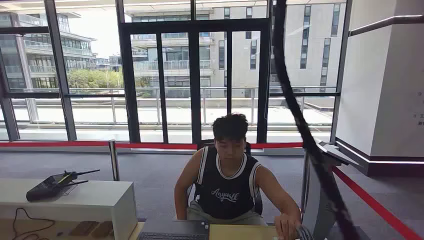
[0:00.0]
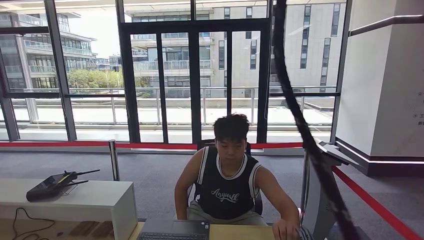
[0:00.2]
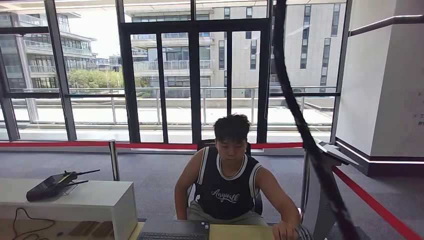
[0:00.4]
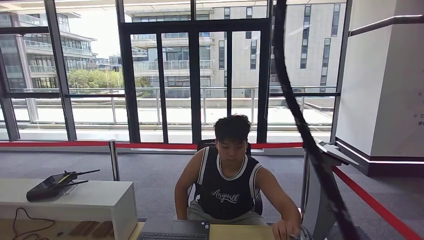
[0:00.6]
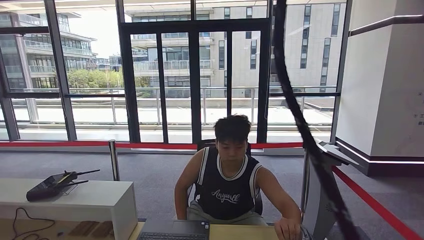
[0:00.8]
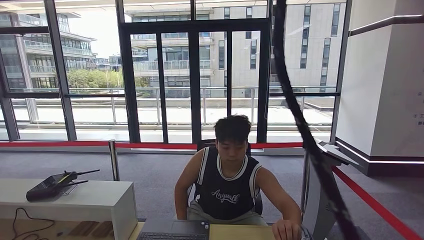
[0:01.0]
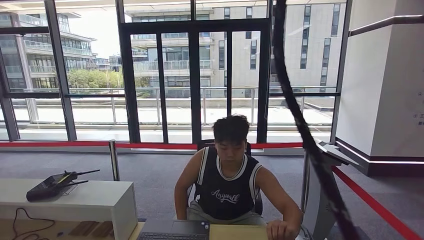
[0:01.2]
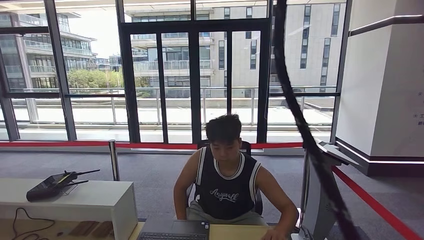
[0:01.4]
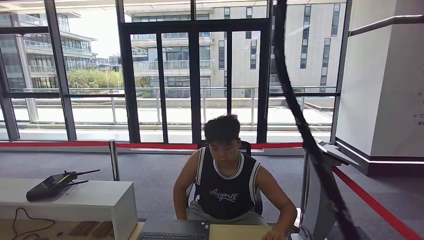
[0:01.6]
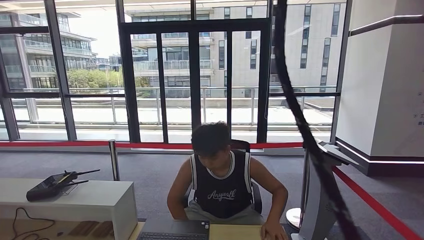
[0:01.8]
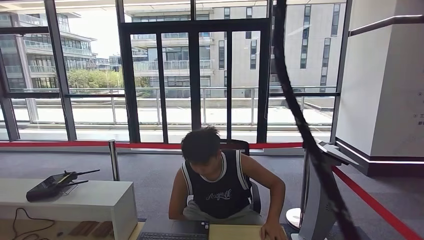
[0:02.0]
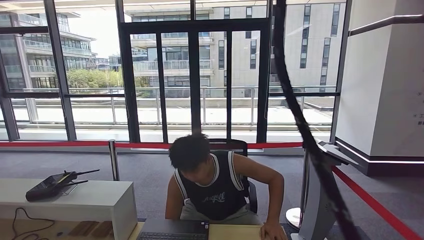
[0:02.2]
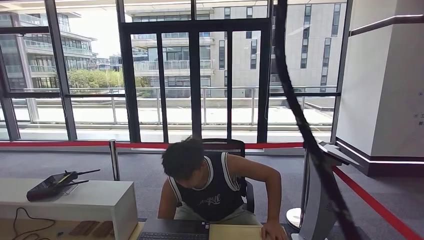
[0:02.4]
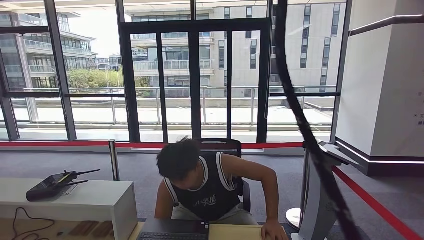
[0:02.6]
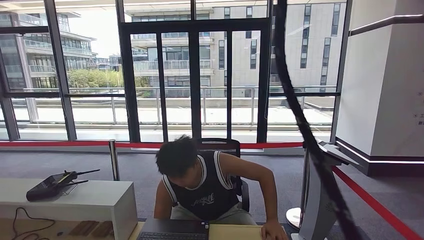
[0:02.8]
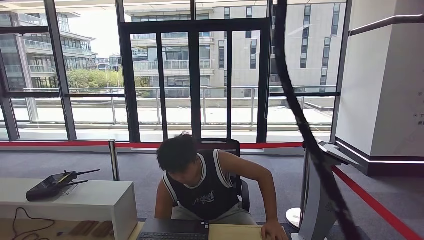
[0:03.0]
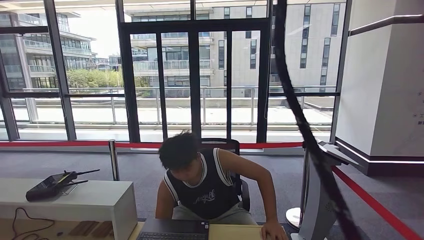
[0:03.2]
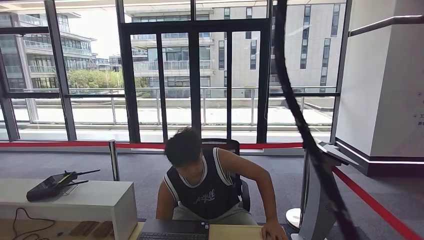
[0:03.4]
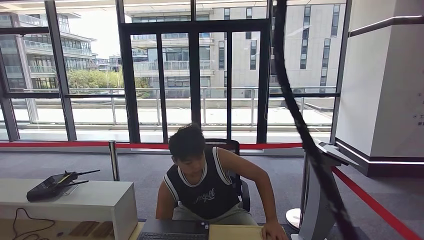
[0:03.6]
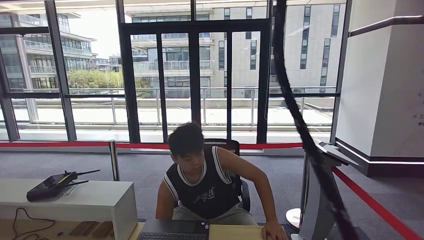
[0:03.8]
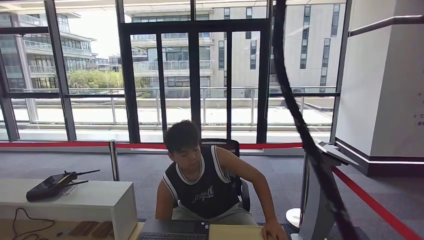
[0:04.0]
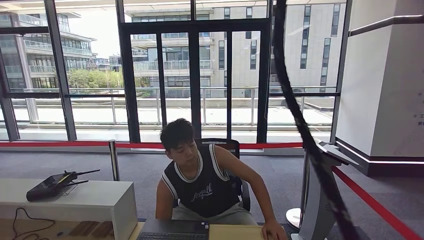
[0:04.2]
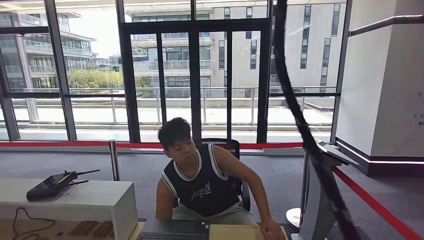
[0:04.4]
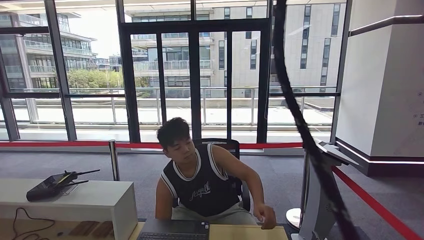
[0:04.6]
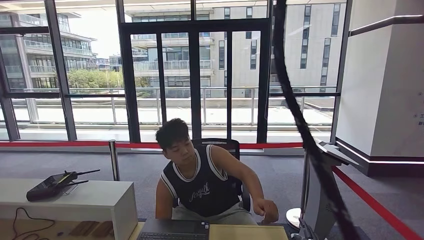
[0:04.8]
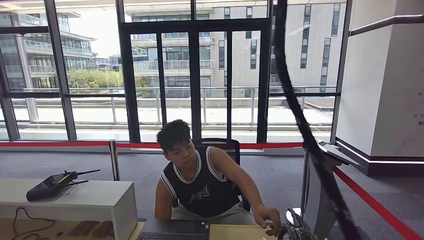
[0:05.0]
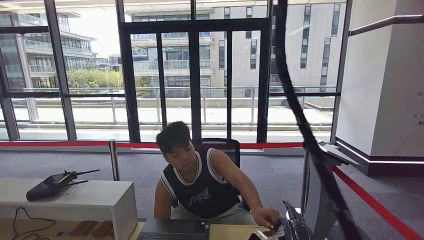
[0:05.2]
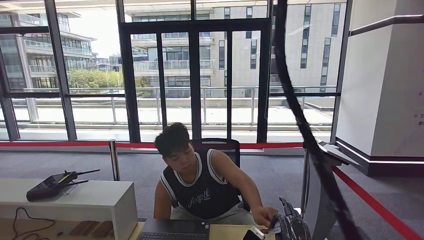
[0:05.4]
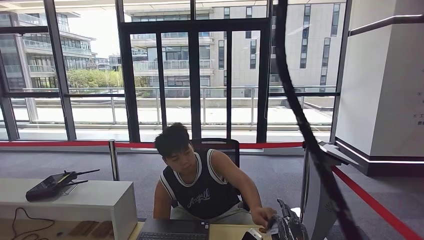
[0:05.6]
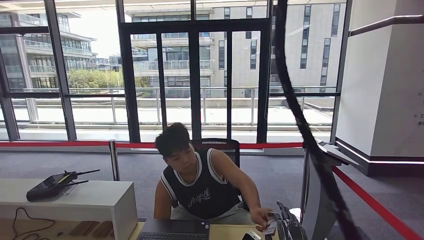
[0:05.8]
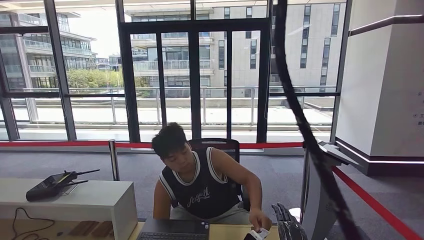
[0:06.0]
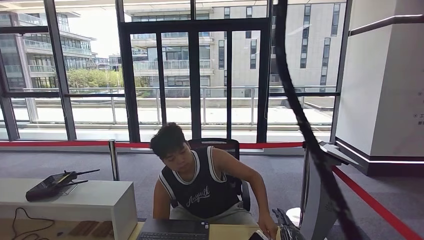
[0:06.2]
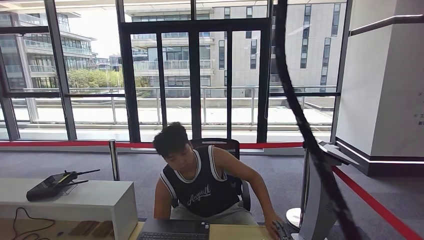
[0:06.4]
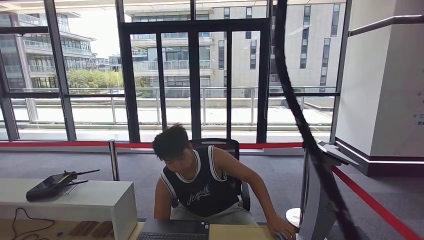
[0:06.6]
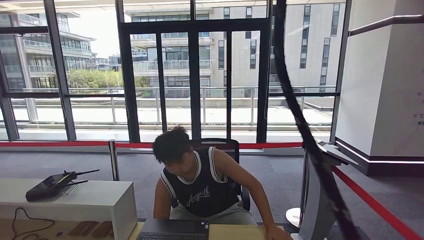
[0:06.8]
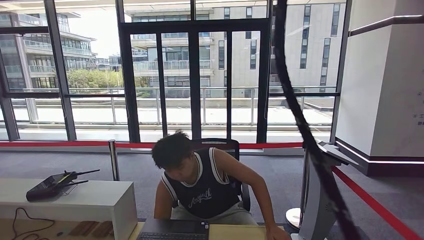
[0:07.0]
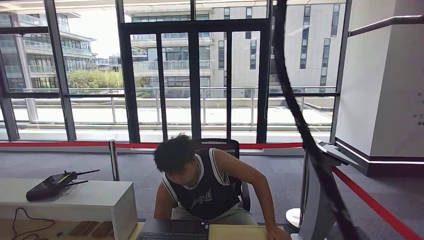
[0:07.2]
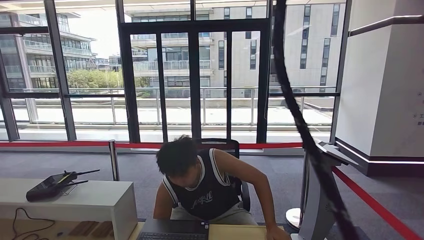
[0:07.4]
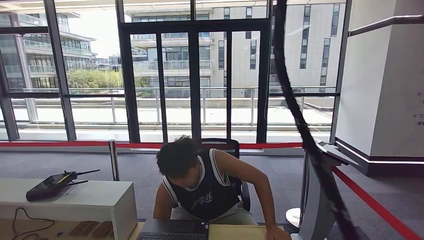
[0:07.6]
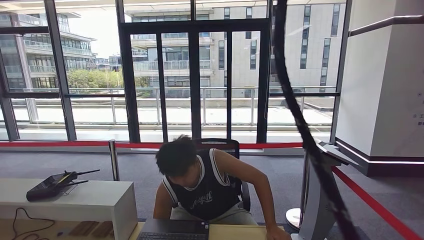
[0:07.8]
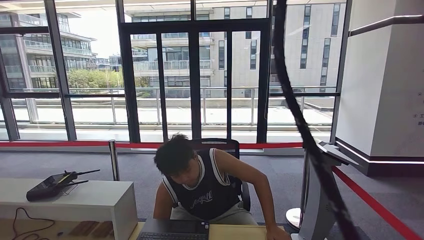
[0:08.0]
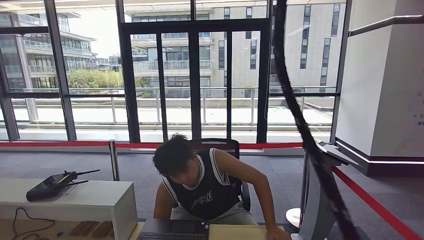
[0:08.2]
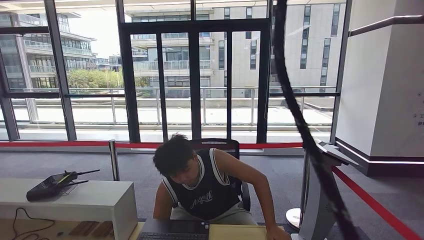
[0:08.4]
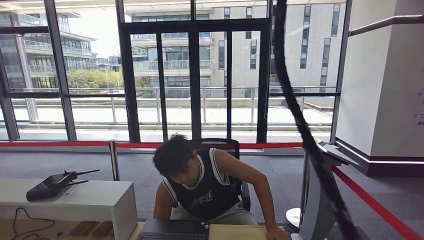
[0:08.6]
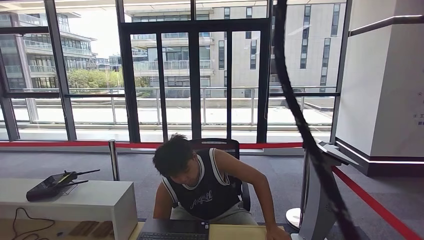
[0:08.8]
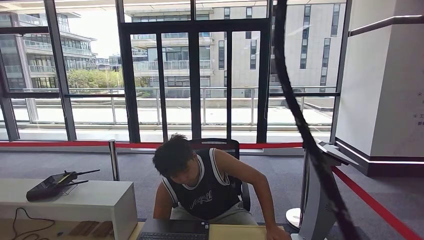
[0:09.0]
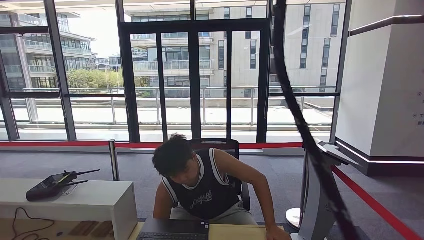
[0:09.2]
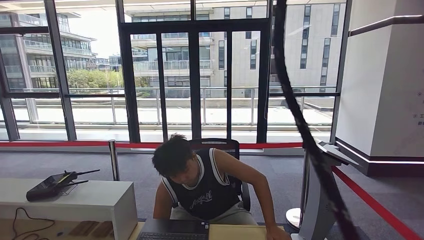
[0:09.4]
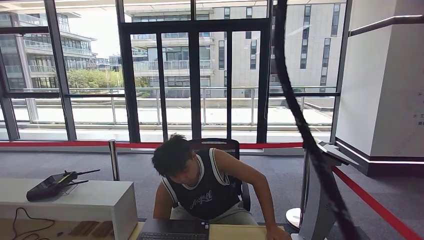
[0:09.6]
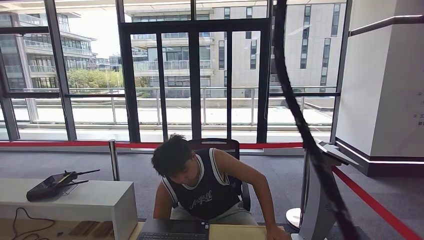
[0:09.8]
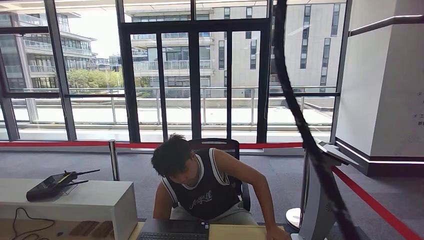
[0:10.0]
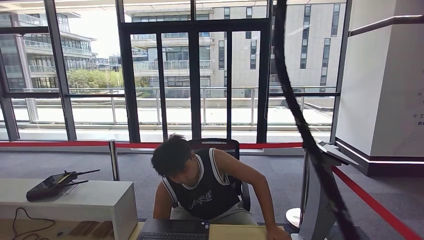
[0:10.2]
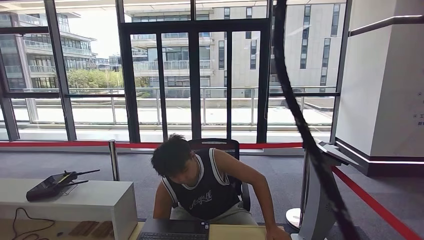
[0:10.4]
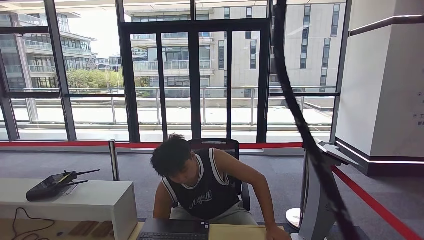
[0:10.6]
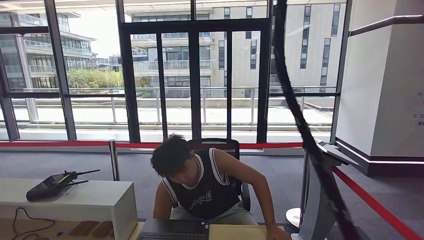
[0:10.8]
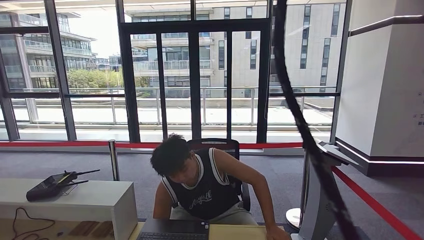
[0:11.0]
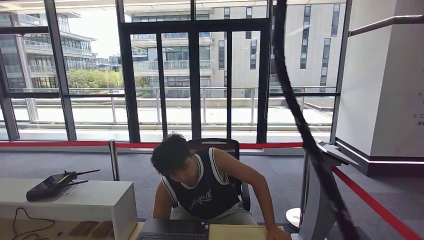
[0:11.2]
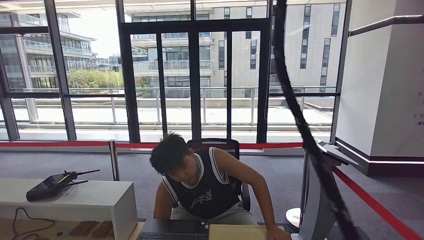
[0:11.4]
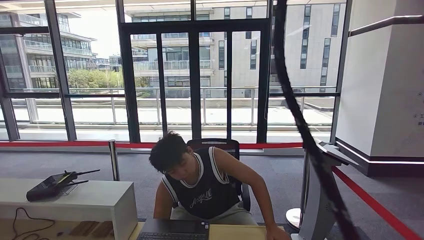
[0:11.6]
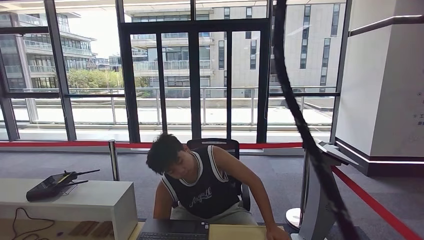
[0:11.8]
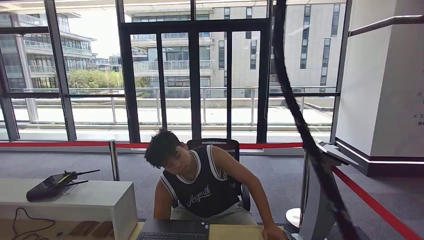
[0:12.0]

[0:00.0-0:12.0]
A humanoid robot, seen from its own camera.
Step, 0:01.2 to 0:04.4: Place the ID card on the card reader.
Step, 0:04.6 to 0:06.4: Hand the ID card to the person.
Step, 0:06.8 to 0:11.2: Pick up the room key from the key card box.
0:01.6 to 0:03.0: The right hand moves downward and to the right, about 10 cm.
0:03.0 to 0:04.4: The right hand goes about 5 cm upward.
0:04.4 to 0:06.0: The right hand goes roughly 15 cm upward, to the left and forward.
0:06.0 to 0:07.6: The right hand heads downward and backward, covering some 20 cm.
0:10.4 to 0:12.0: The right hand shifts about 10 cm upward.

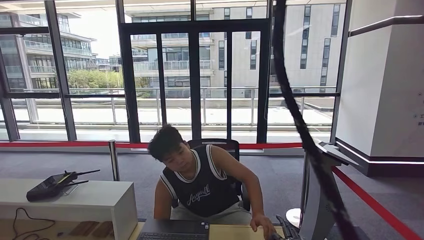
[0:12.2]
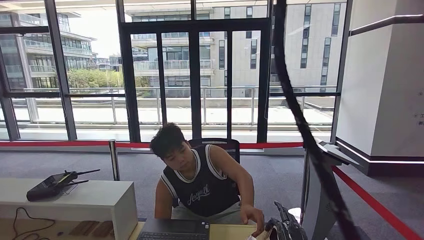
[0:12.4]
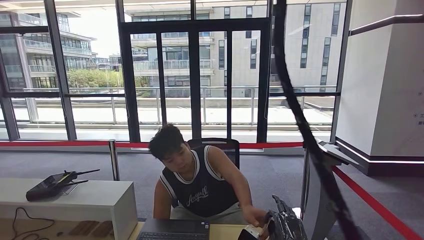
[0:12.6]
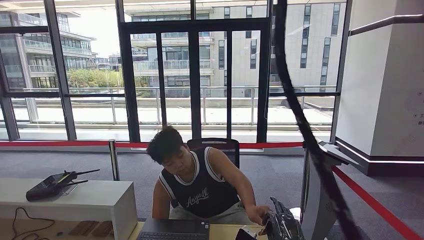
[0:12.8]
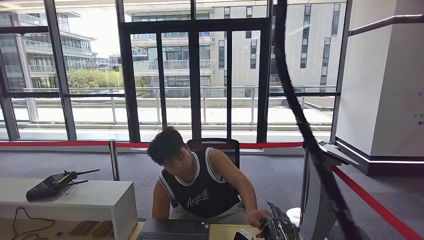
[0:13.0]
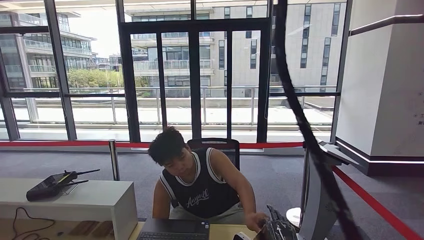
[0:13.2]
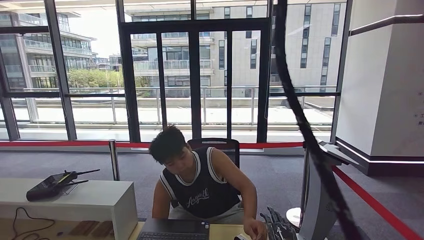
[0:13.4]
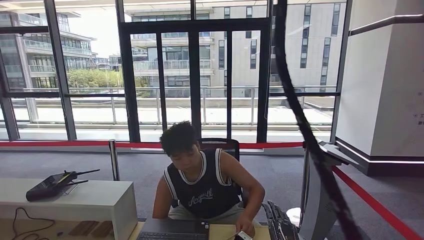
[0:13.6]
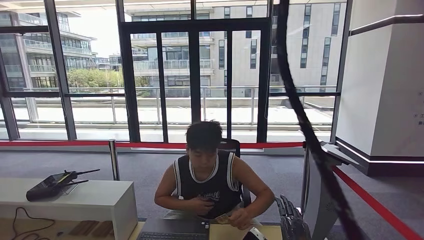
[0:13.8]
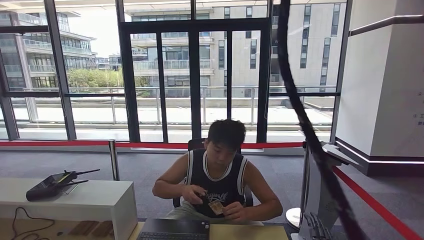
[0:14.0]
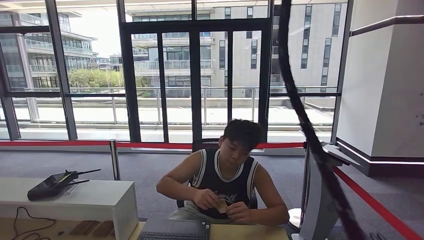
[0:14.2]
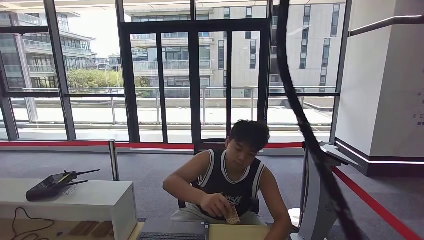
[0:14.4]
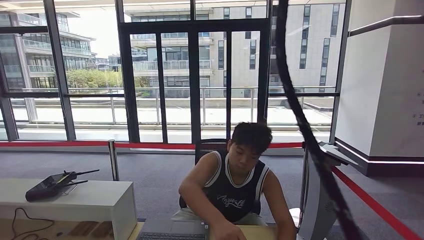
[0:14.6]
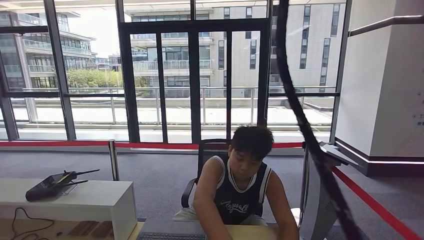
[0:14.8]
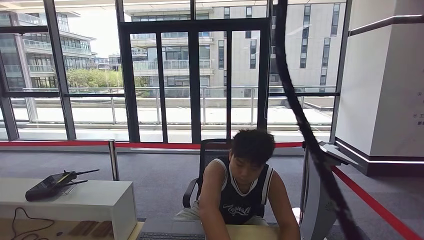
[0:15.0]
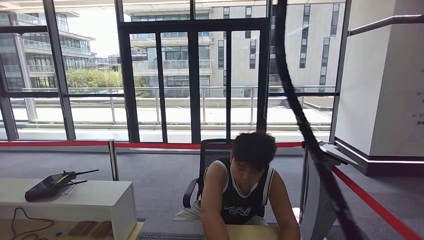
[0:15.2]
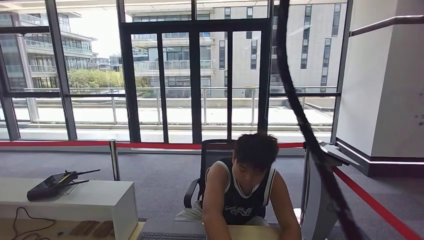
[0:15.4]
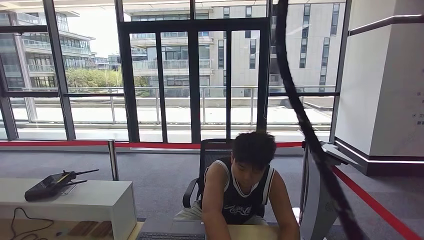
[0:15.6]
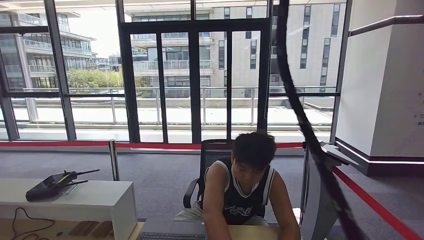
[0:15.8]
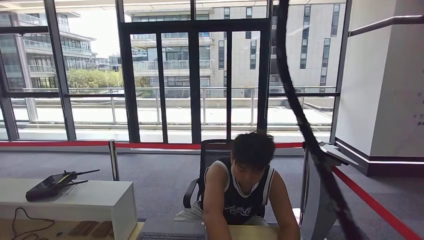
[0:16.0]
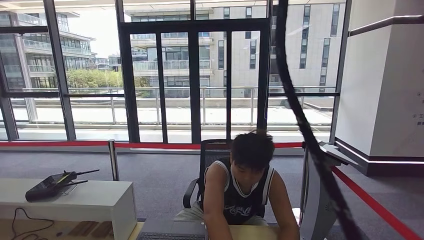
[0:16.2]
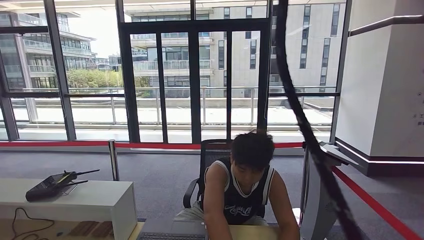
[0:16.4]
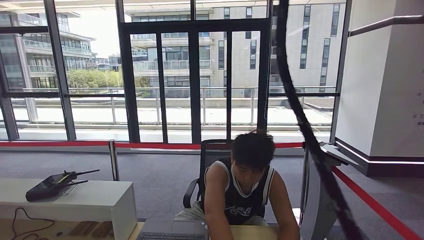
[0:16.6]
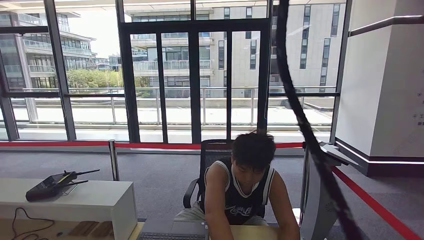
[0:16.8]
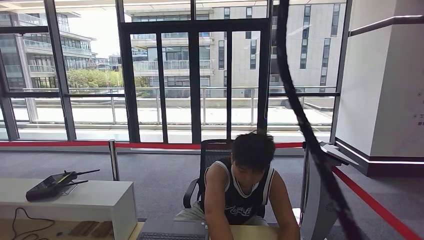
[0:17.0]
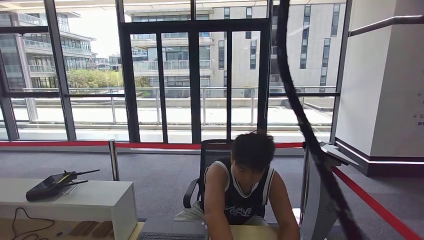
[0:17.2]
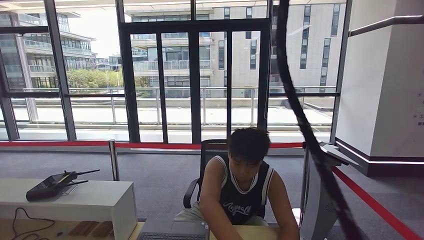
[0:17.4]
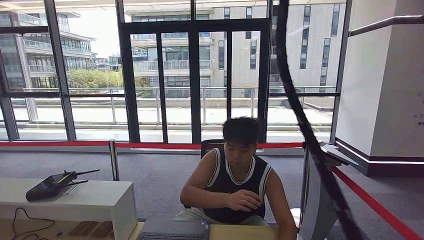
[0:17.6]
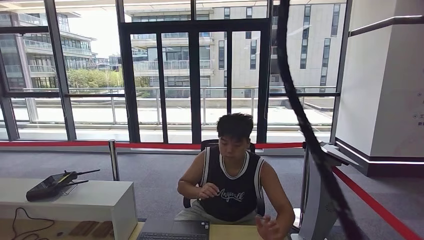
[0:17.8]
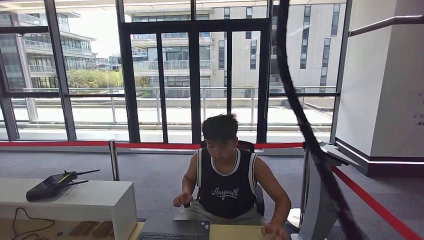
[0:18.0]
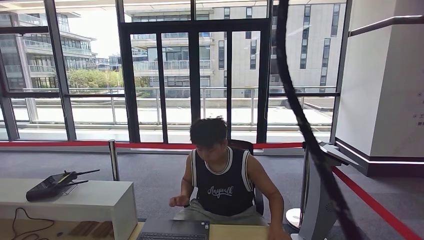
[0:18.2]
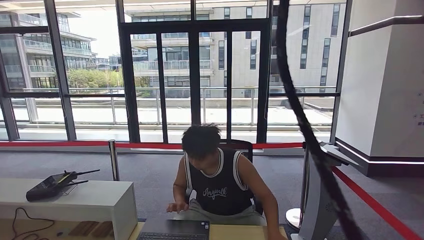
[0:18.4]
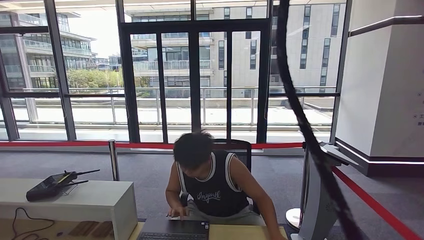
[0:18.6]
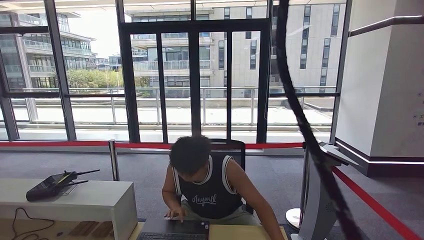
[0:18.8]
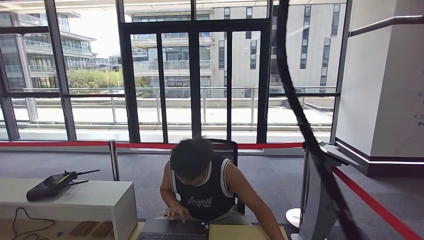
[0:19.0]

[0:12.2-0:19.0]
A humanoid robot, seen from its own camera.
0:12.2 to 0:13.6: The right hand heads forward, covering roughly 5 cm.
0:13.6 to 0:15.0: The right hand heads to the right, backward and downward, covering roughly 40 cm.
0:15.0 to 0:16.2: The right hand is displaced backward, downward and to the left by roughly 25 cm.
0:16.2 to 0:19.0: There are only small adjustments of the hands.
